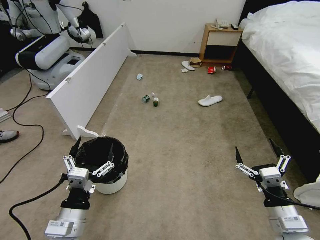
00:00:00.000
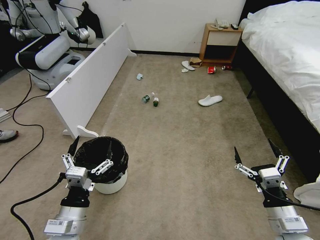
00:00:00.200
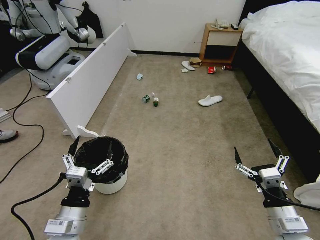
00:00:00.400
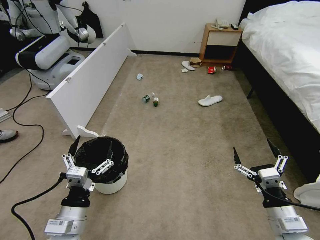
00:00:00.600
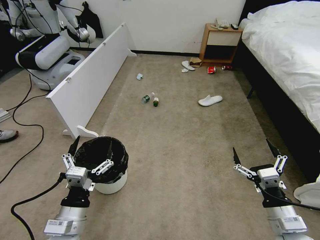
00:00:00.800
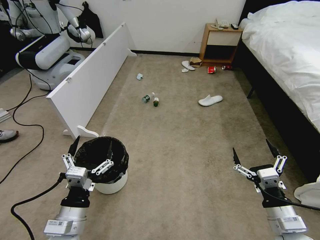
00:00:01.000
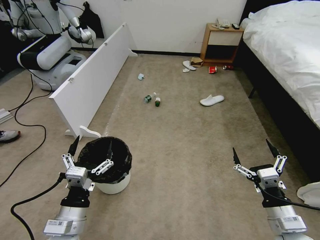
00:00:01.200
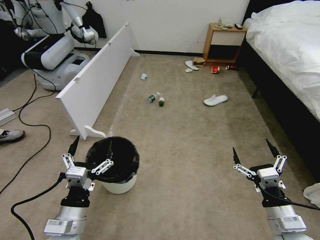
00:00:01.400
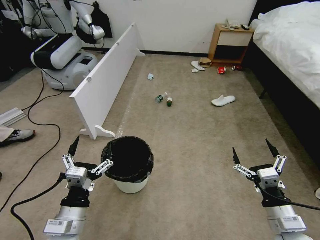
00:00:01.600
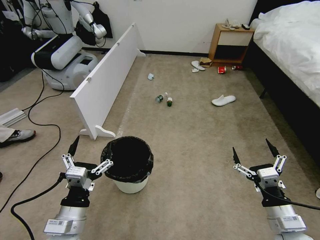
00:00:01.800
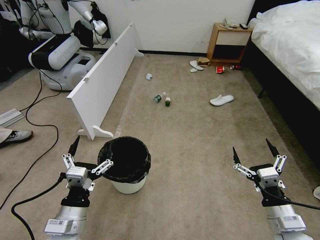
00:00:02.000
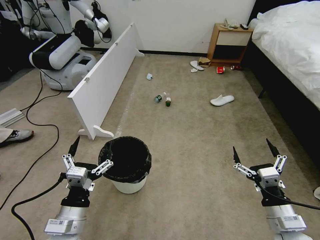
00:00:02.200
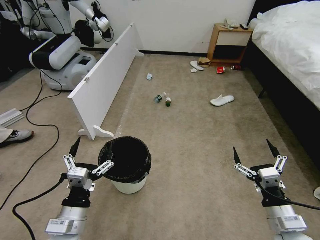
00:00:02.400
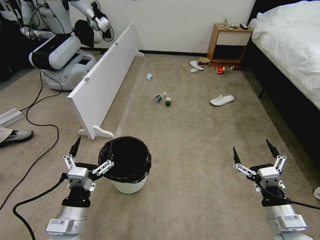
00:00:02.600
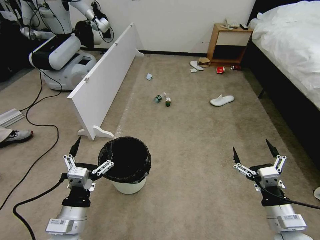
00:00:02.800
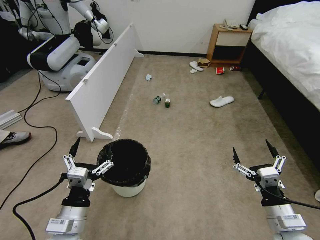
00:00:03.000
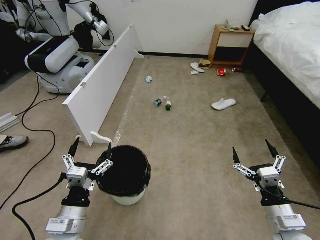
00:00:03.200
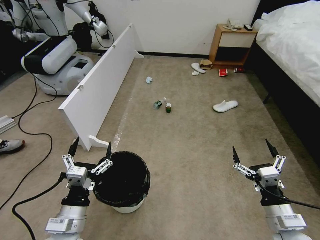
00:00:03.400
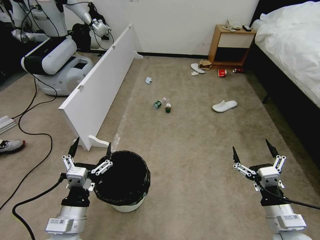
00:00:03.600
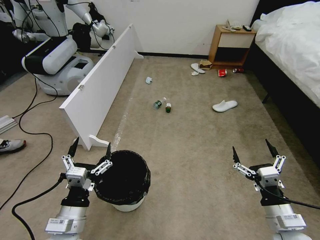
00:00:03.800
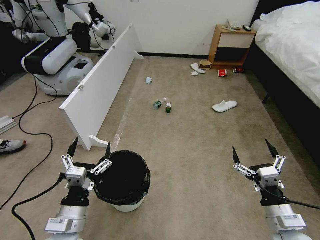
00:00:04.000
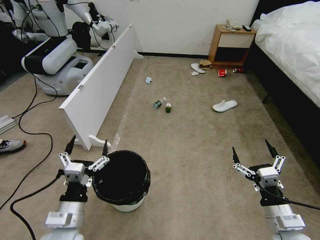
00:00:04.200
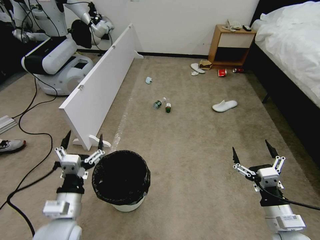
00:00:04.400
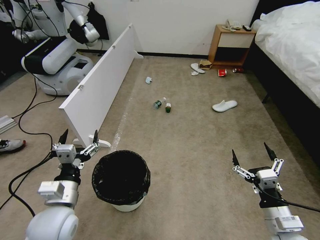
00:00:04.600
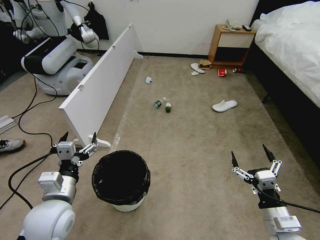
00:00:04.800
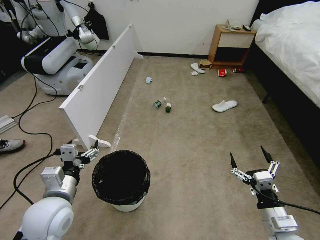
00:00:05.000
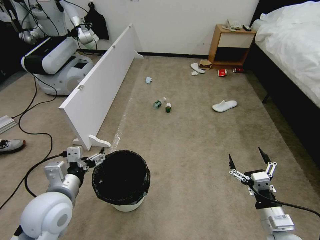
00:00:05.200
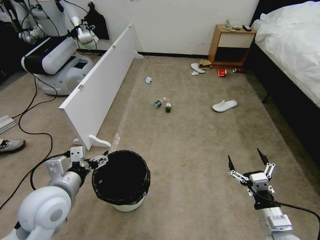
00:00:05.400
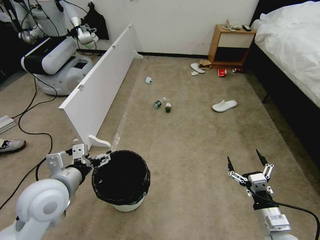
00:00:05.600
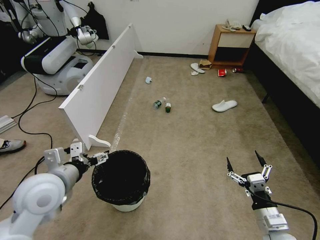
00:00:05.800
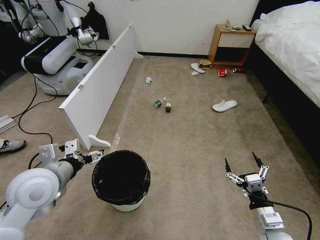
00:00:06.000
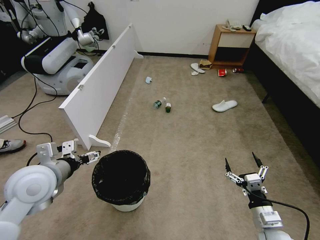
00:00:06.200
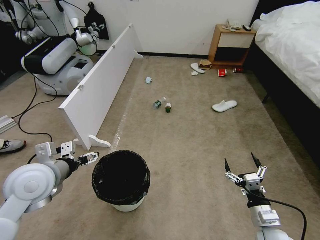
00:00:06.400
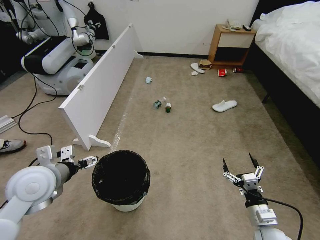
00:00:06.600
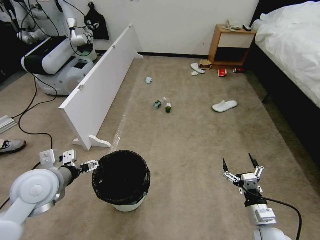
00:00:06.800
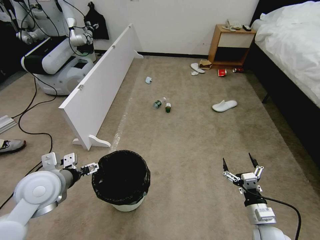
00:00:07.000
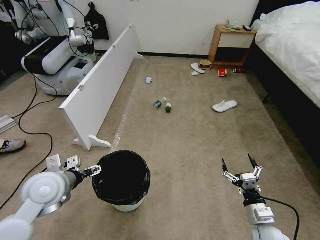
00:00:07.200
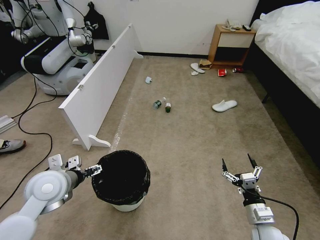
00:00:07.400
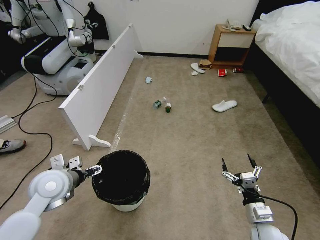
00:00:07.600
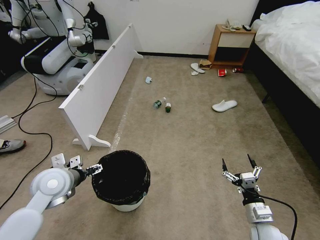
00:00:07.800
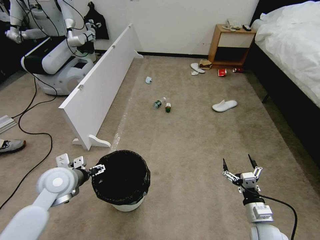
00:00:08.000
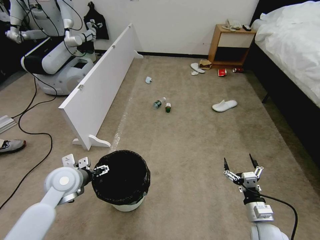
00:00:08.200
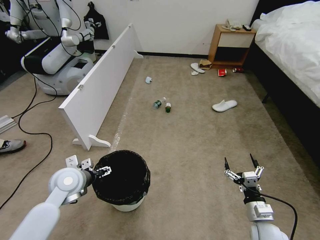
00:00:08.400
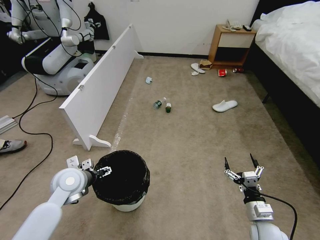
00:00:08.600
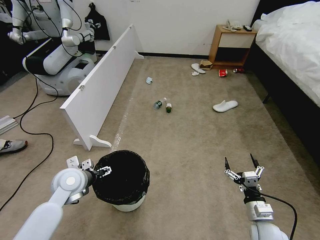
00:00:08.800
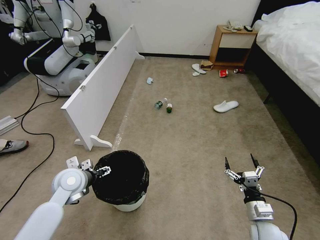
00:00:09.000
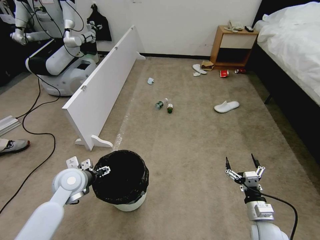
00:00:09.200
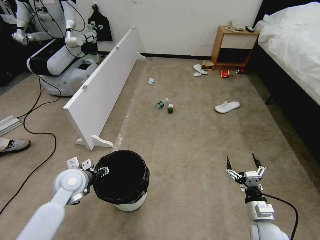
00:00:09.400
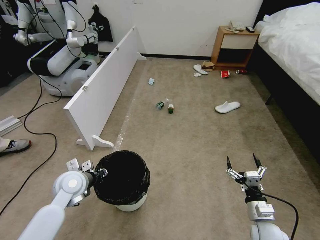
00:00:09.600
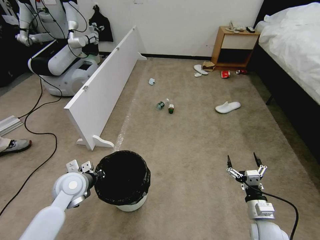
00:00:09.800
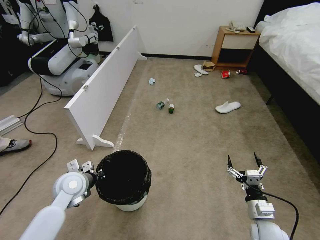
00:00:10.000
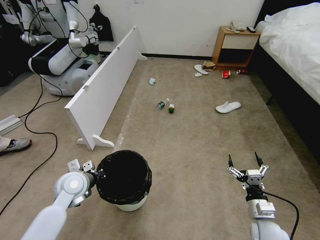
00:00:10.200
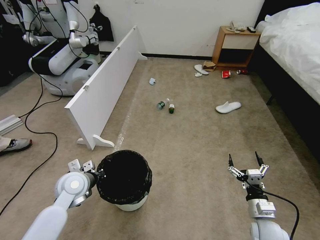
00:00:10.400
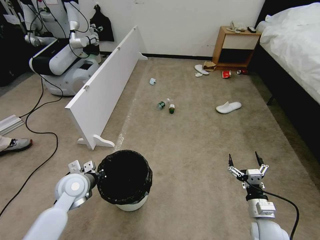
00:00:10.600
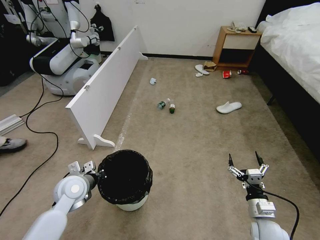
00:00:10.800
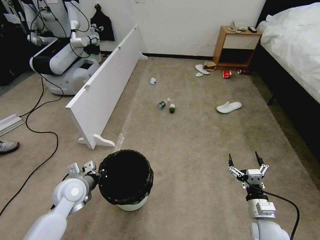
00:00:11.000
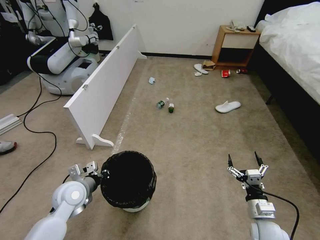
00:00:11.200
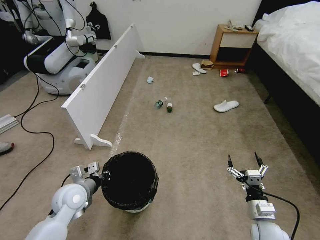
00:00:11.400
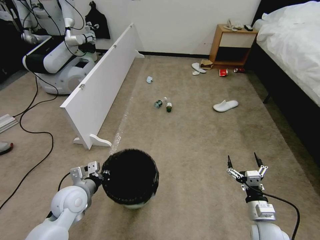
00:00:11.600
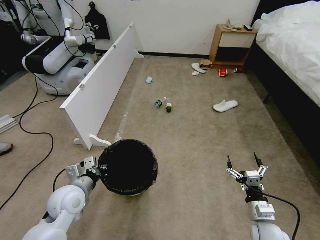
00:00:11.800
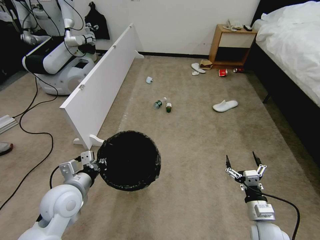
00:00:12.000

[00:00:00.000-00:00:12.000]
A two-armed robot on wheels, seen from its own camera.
Task of the whole recording: Pick up the trash bin, then pick up the garbage from the floor and place it into the trash bin.
00:00:01.600 to 00:00:03.000: Both grippers stay about where they are.
00:00:04.400 to 00:00:06.000: The left gripper shifts approximately 10 cm upward and forward. Meanwhile the right gripper heads downward, covering some 5 cm.
00:00:06.000 to 00:00:07.600: The left gripper heads downward, covering some 5 cm.
00:00:07.600 to 00:00:09.000: The left gripper travels downward by approximately 5 cm.
00:00:09.000 to 00:00:10.400: The left gripper closes.
00:00:10.400 to 00:00:12.000: The left gripper moves backward and upward, approximately 10 cm.

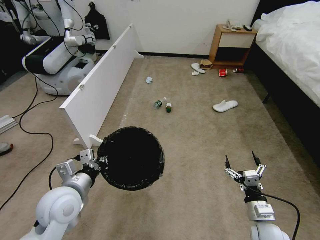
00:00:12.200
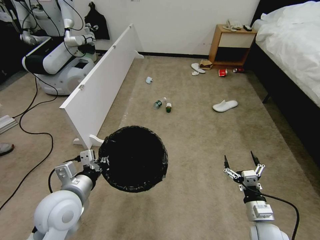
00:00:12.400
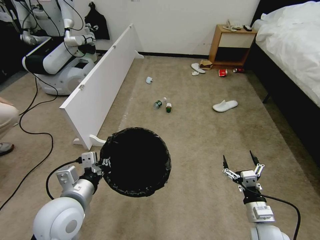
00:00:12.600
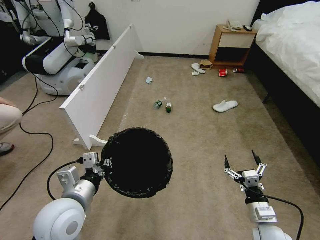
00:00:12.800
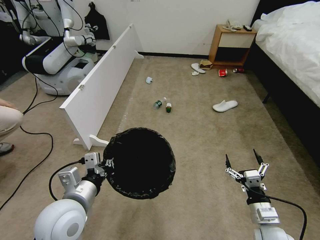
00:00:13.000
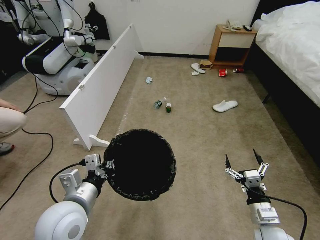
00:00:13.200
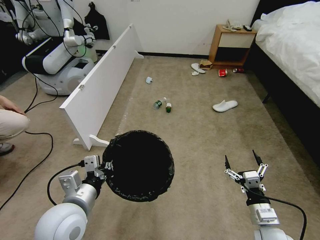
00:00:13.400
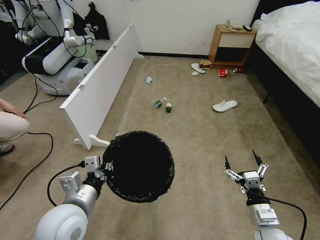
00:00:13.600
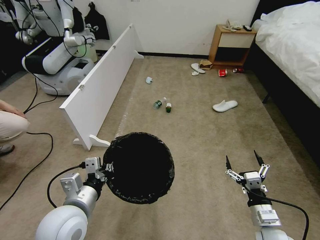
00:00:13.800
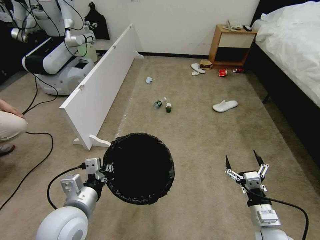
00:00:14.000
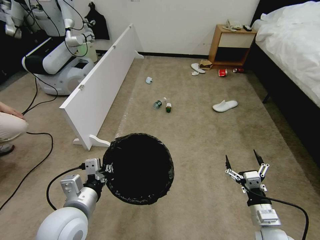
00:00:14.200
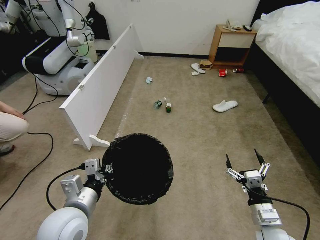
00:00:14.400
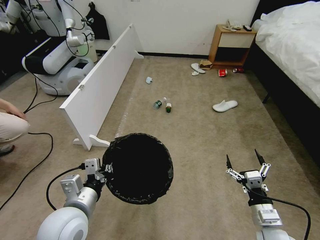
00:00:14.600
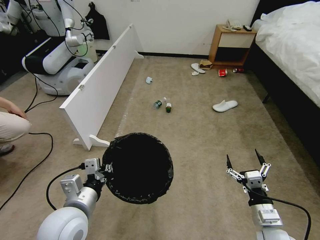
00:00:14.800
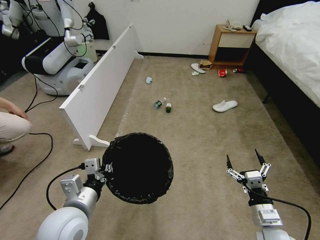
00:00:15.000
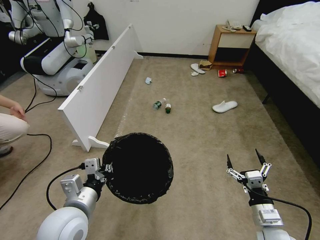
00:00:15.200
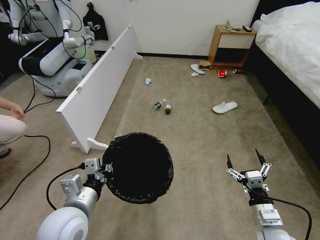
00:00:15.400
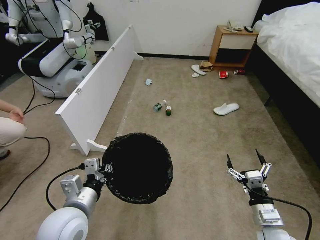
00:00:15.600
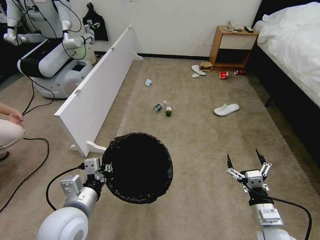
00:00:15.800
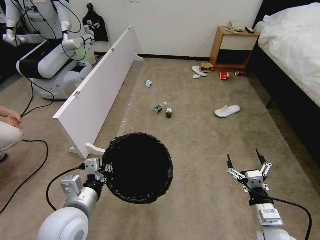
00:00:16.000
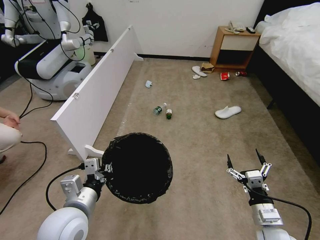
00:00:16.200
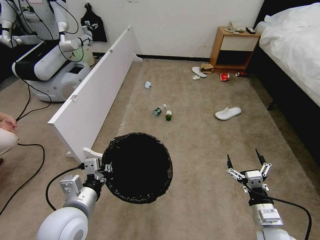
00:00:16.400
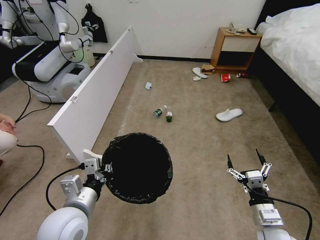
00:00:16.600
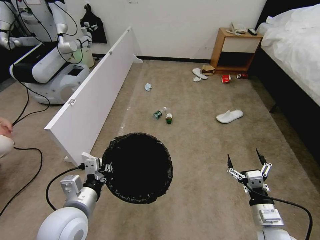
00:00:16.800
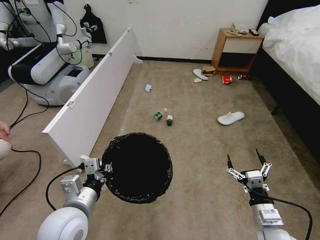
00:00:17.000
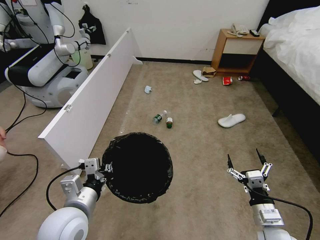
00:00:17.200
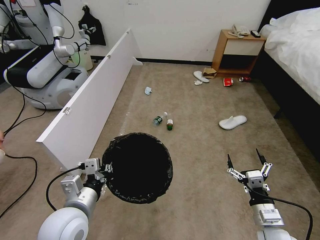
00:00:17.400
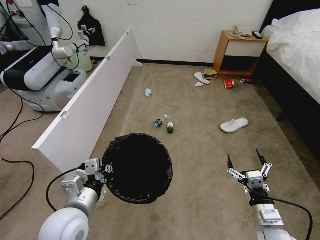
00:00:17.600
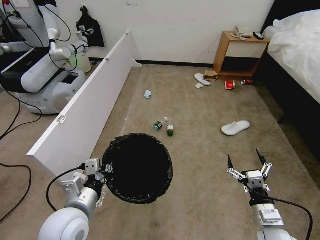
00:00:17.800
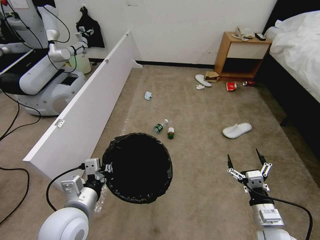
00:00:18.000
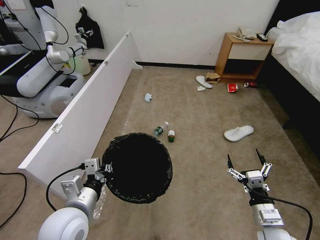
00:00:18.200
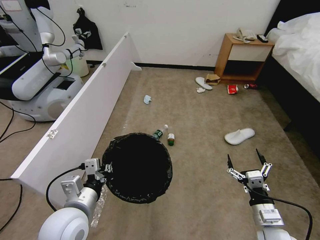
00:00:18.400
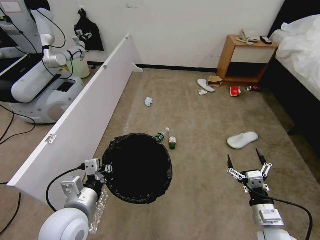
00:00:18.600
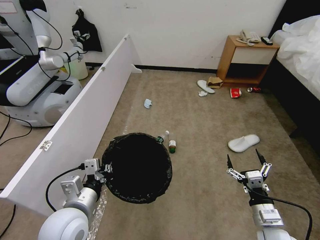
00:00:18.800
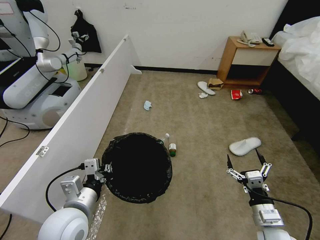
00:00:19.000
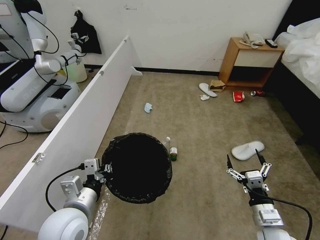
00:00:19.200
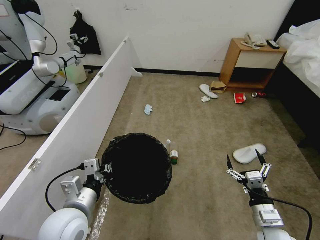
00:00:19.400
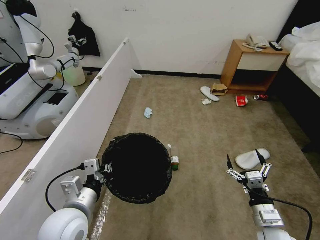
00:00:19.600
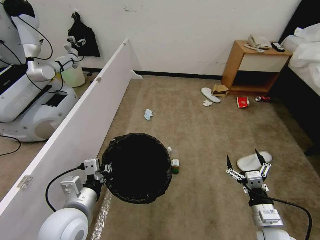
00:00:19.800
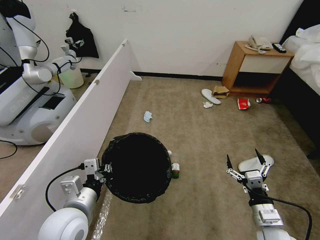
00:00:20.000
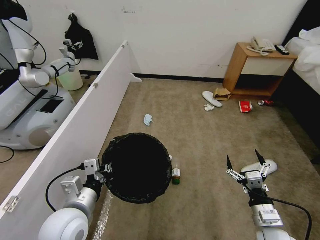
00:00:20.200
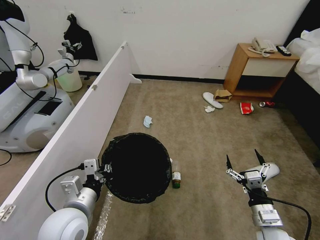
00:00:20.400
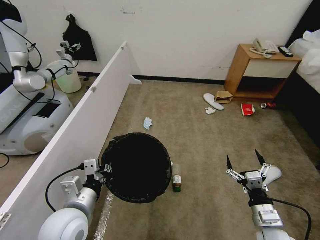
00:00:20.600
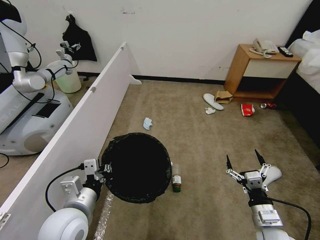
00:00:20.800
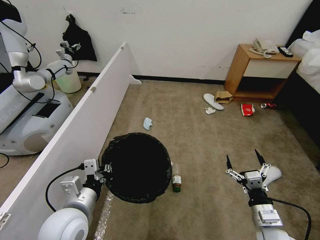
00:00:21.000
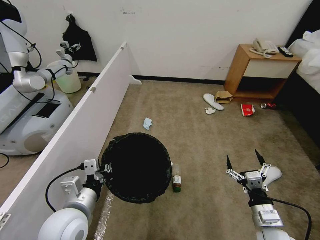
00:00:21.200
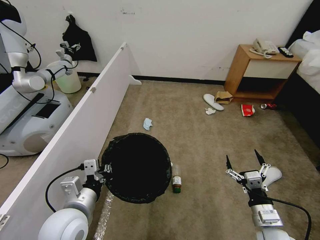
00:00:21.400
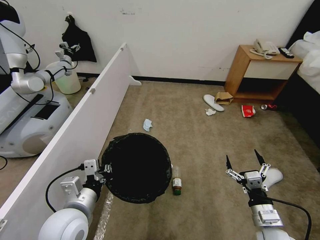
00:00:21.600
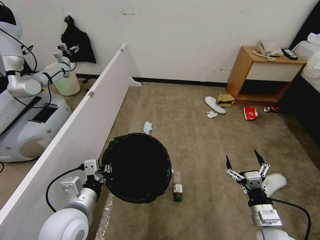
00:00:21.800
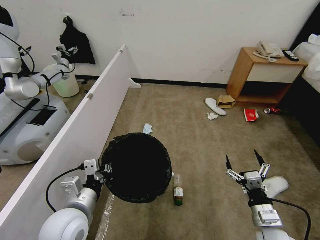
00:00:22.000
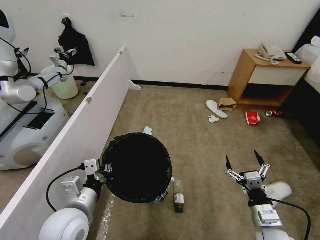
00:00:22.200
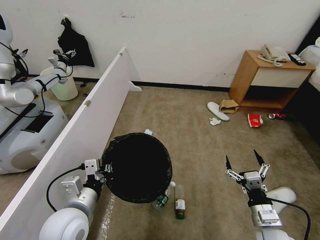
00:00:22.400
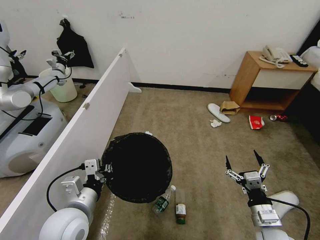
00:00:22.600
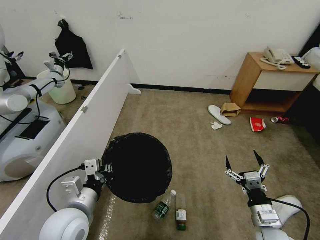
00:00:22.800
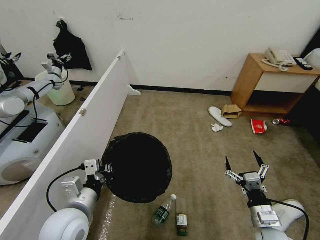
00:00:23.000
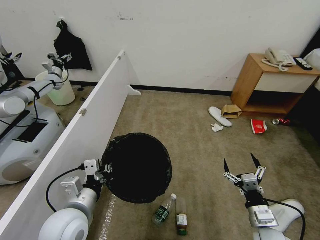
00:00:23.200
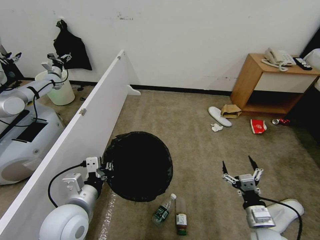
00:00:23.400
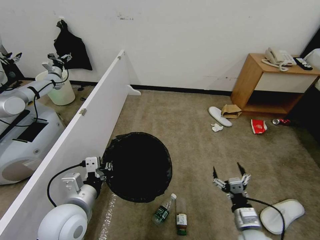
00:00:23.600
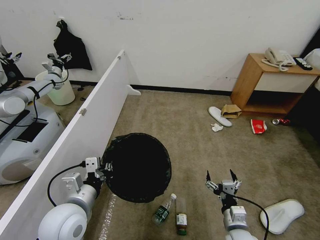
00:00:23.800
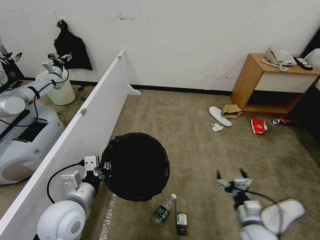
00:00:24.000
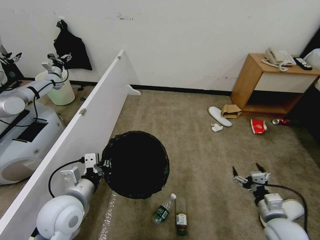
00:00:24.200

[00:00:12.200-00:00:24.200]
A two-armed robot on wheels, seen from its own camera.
Task of the whole recording: Pick up the trash bin, then pick up the garbage from the floor and place it into the trash bin.
00:00:12.200 to 00:00:13.800: The left gripper shifts by some 5 cm.
00:00:13.800 to 00:00:16.600: Neither gripper changes place.
00:00:19.800 to 00:00:21.200: Both grippers stay put.
